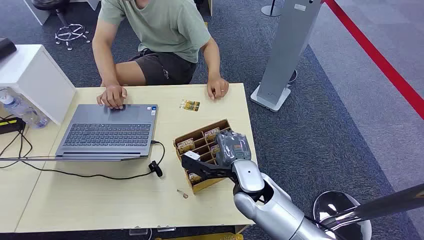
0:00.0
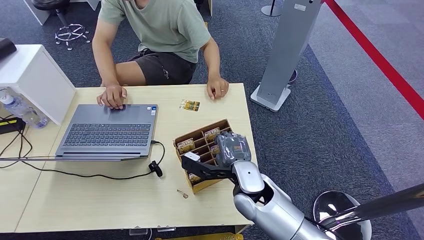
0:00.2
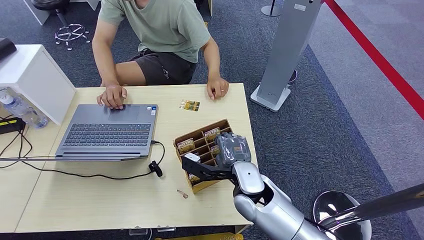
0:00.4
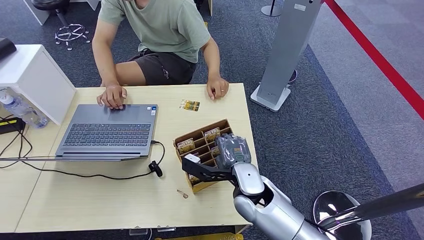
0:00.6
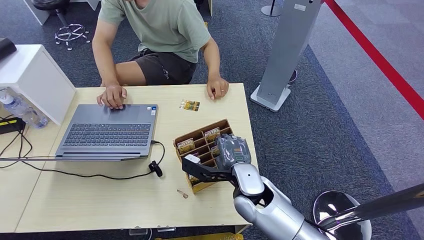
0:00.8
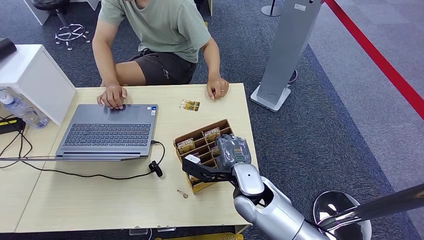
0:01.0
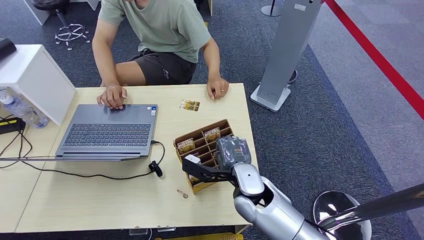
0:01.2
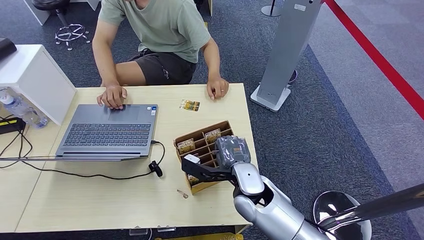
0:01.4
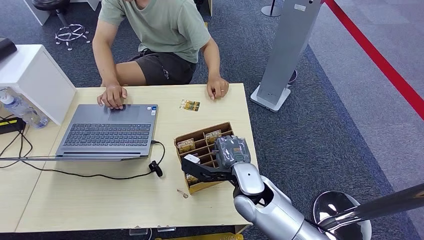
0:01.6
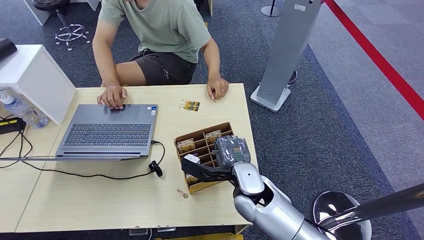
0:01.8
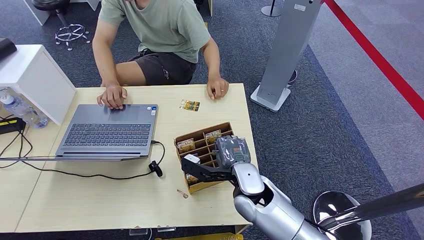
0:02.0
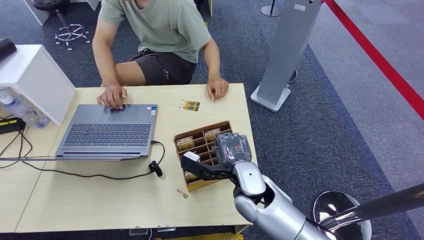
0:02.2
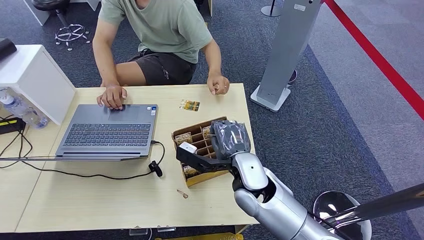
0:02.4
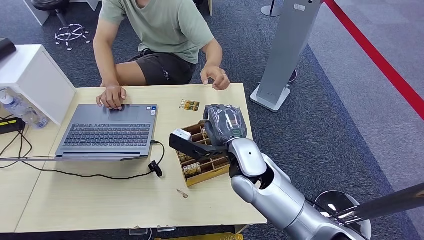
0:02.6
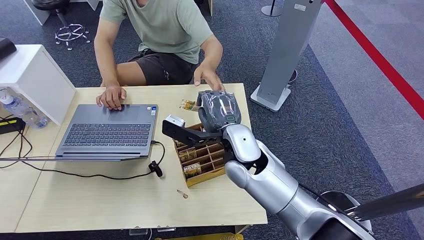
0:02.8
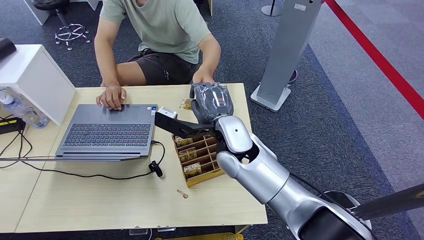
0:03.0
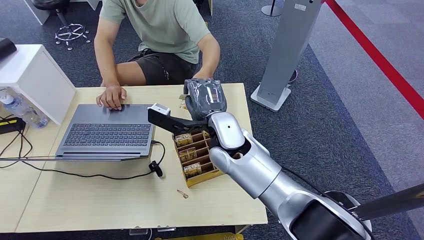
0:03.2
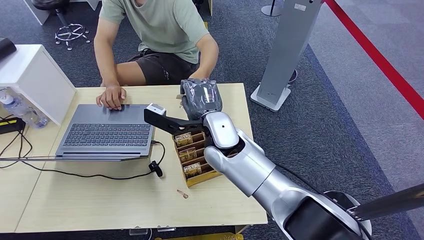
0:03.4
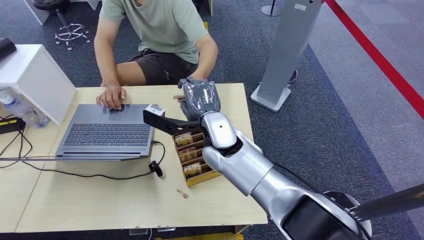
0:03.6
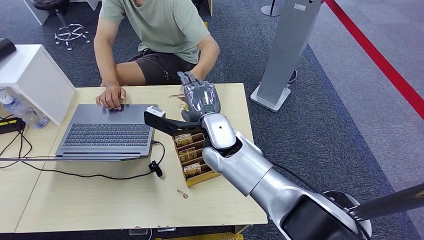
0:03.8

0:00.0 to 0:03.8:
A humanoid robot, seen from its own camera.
Step, 0:00.0 to 0:02.6: Pick up the key card from the card box.
Step, 0:02.8 to 0:03.8: Hand the key card to the target.
0:01.2 to 0:02.6: The right hand goes roughly 5 cm upward.
0:02.6 to 0:03.8: The right hand shifts about 10 cm to the left and forward.
